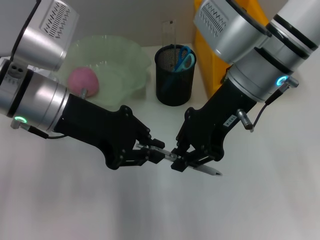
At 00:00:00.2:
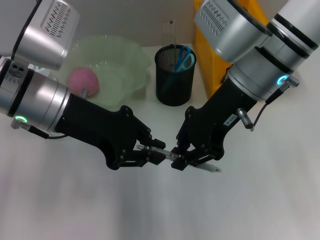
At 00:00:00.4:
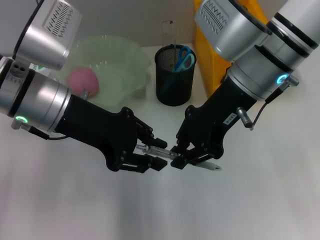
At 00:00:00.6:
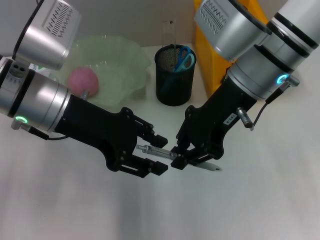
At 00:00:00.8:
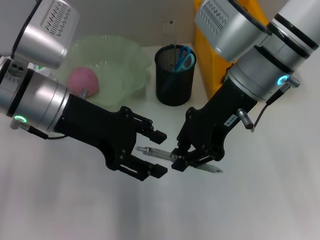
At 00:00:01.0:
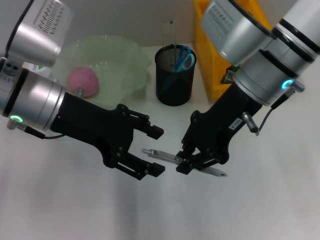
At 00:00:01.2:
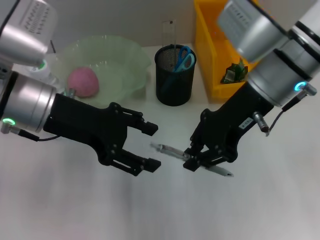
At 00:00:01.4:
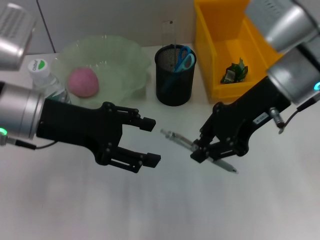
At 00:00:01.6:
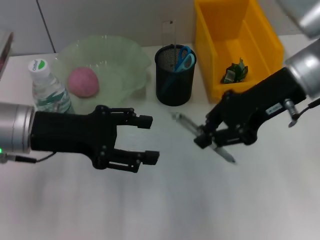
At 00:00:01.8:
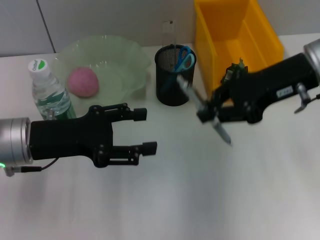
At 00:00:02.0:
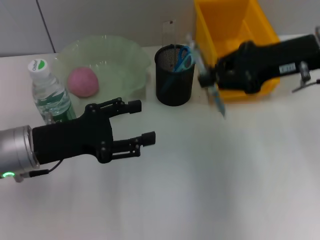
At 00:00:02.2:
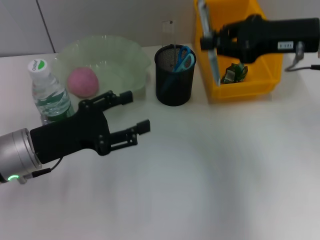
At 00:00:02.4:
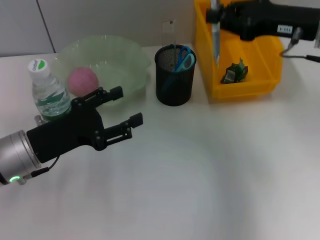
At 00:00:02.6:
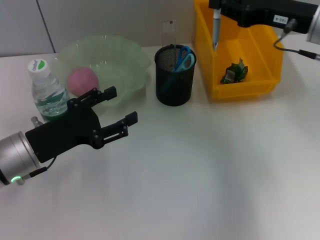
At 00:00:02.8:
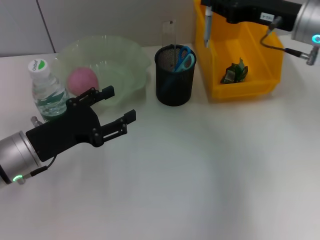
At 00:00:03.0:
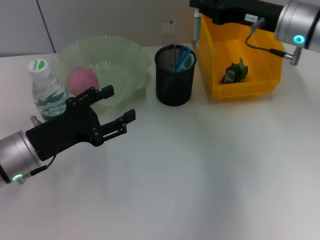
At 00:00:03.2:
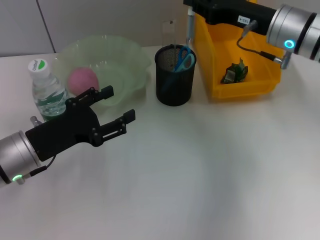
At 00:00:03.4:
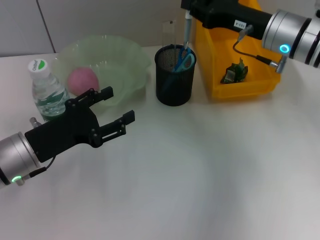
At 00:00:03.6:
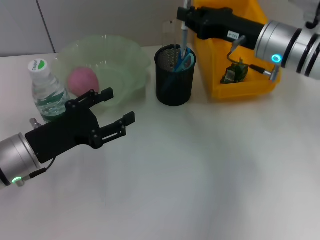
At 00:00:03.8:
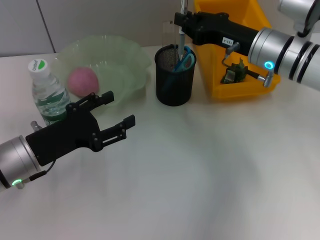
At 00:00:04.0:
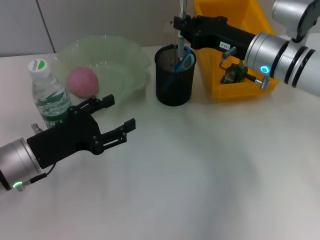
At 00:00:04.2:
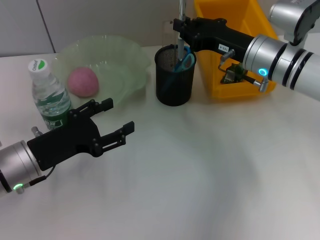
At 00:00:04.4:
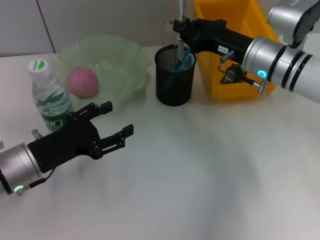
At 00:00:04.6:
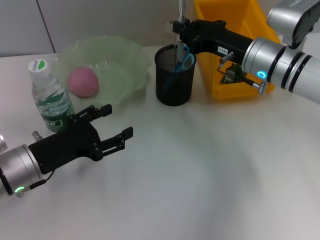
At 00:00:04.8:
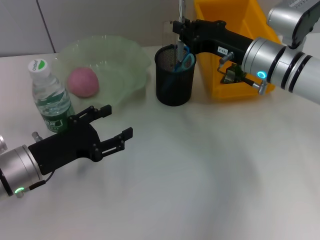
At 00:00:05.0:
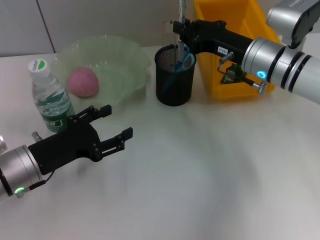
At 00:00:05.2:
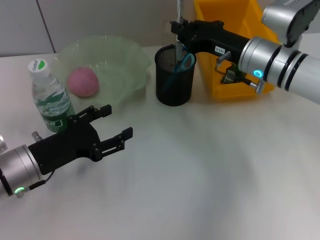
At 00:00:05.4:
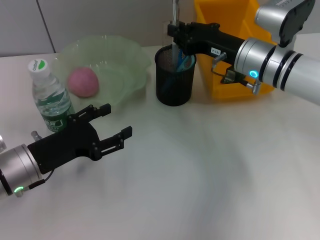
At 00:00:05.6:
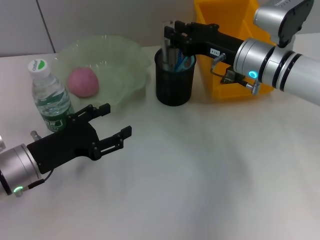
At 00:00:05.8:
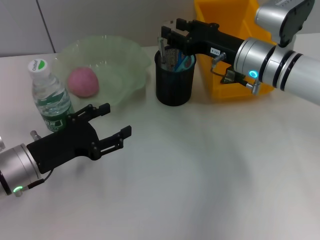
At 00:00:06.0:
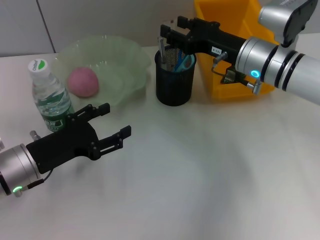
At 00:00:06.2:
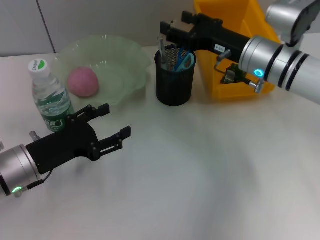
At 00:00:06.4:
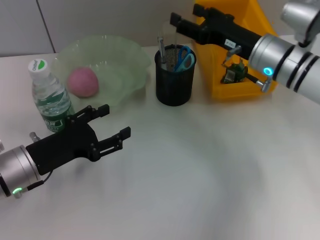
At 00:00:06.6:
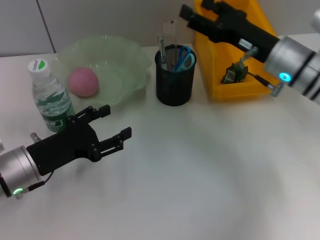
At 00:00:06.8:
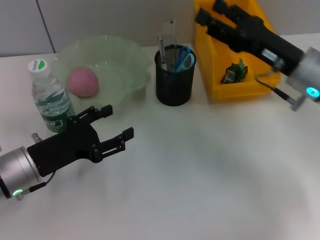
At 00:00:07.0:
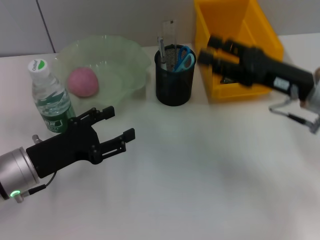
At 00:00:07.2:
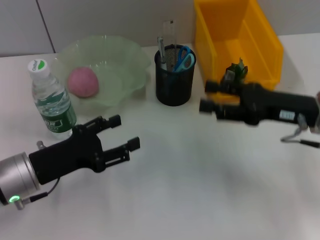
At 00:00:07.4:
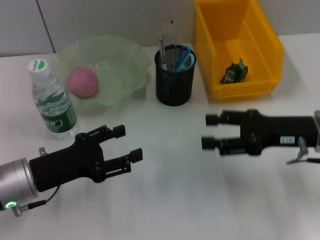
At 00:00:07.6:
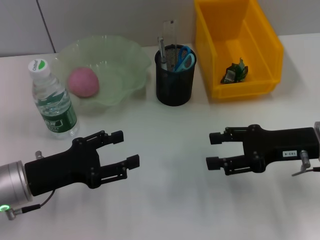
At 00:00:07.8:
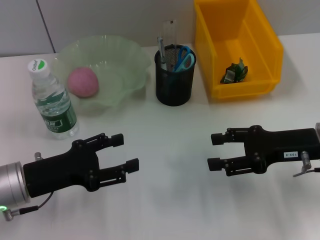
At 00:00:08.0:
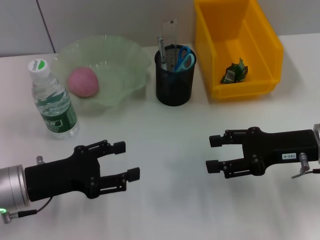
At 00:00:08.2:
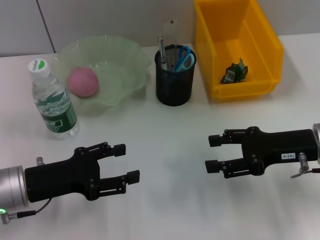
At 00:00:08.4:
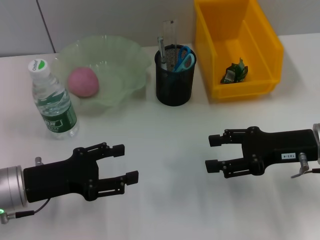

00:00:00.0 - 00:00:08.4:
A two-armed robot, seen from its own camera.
Step, 00:00:00.8 - 00:00:05.8: Place the gray spring-action pen into the pen holder with the right hand.
00:00:00.0 - 00:00:01.4: The left gripper opens. The right gripper shifts approximately 5 cm to the right.
00:00:01.4 - 00:00:02.8: The left gripper shifts roughly 10 cm downward. Meanwhile the right gripper goes about 5 cm to the right.
00:00:02.8 - 00:00:04.2: The right gripper goes roughly 10 cm downward and to the left.
00:00:04.2 - 00:00:05.6: Both grippers stay about where they are.
00:00:05.6 - 00:00:07.0: The right gripper shifts approximately 10 cm backward and to the right, and opens.
